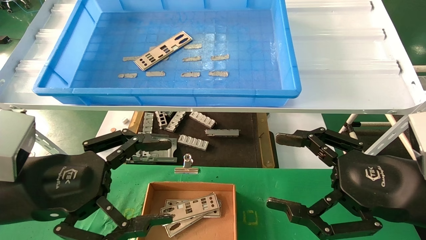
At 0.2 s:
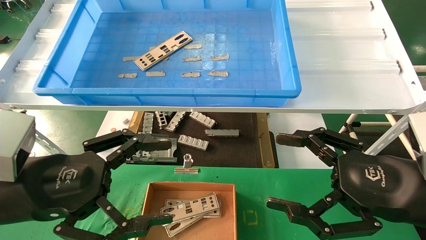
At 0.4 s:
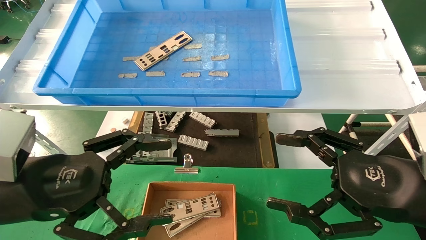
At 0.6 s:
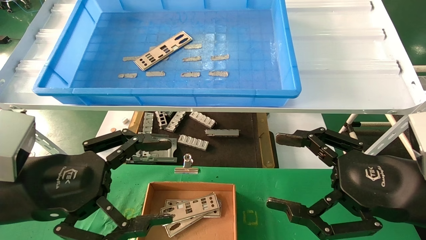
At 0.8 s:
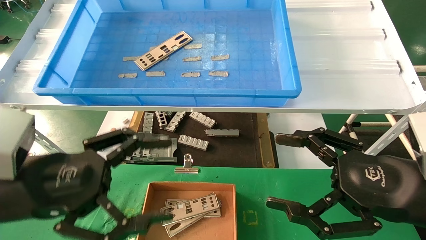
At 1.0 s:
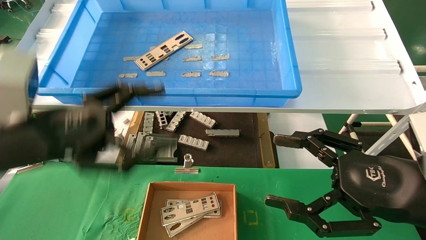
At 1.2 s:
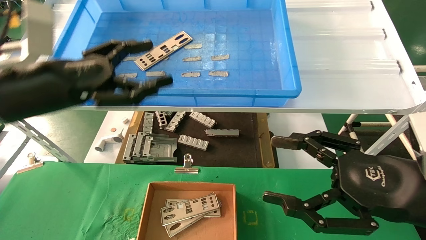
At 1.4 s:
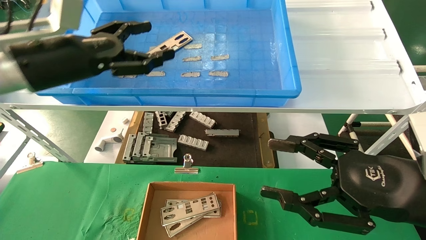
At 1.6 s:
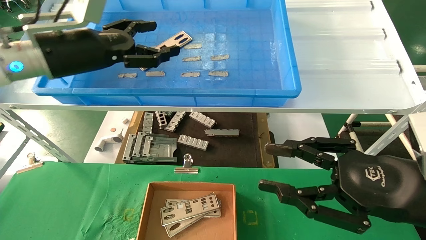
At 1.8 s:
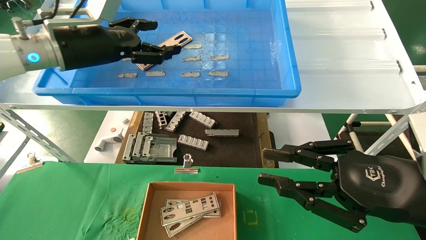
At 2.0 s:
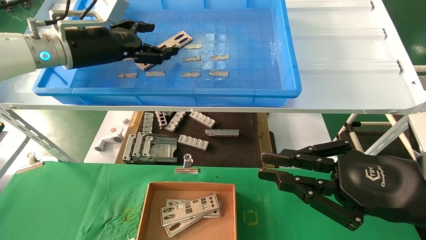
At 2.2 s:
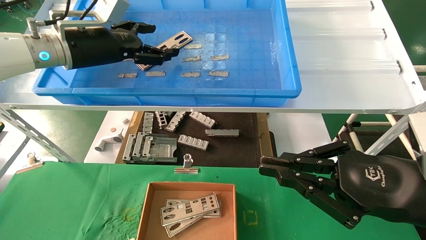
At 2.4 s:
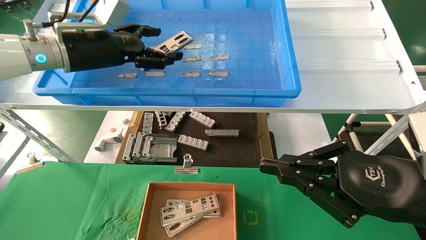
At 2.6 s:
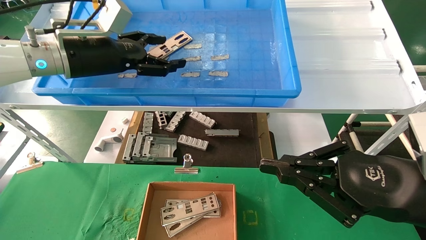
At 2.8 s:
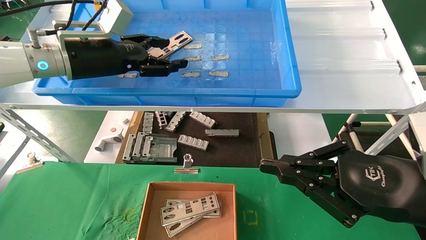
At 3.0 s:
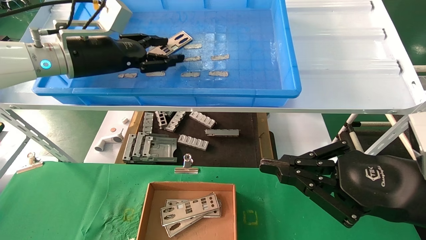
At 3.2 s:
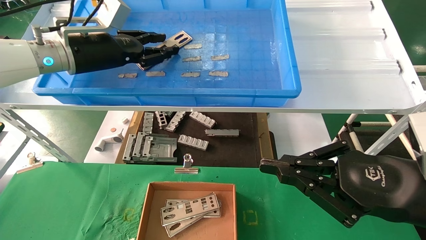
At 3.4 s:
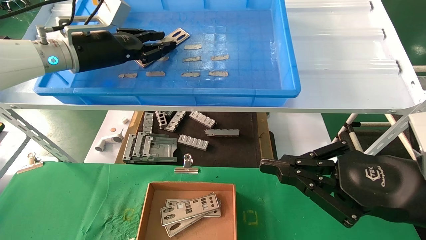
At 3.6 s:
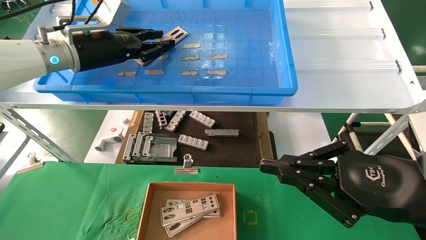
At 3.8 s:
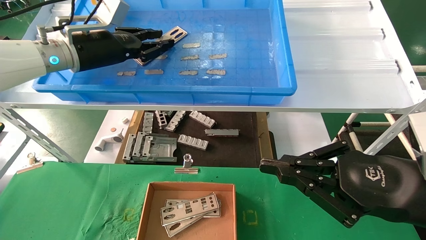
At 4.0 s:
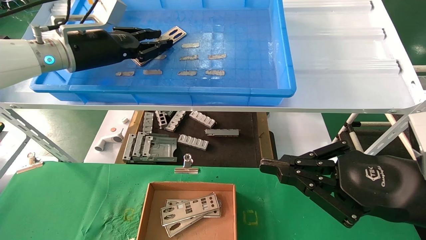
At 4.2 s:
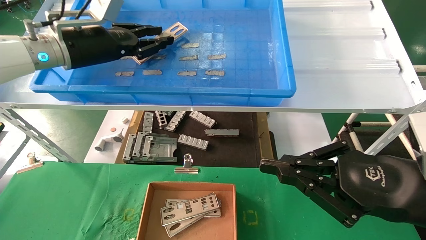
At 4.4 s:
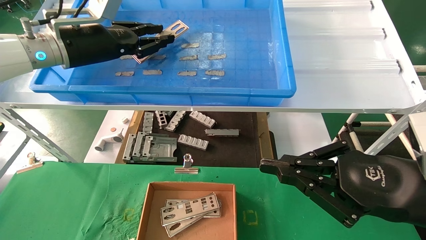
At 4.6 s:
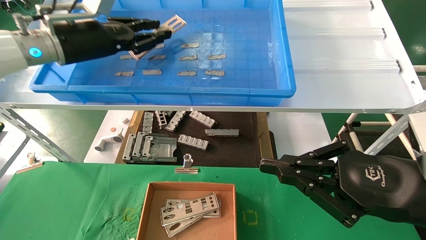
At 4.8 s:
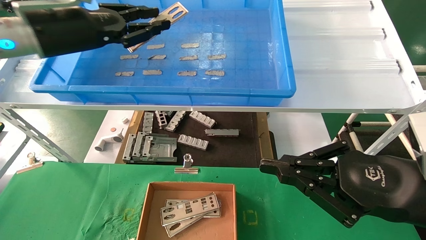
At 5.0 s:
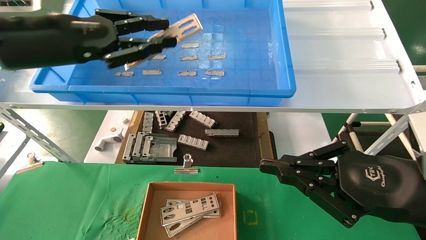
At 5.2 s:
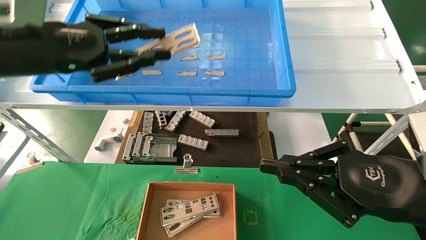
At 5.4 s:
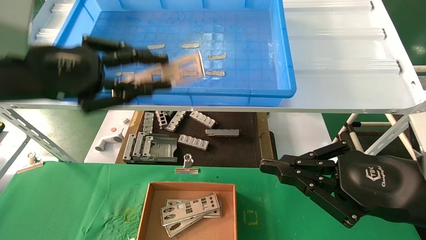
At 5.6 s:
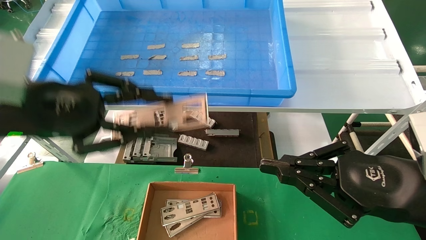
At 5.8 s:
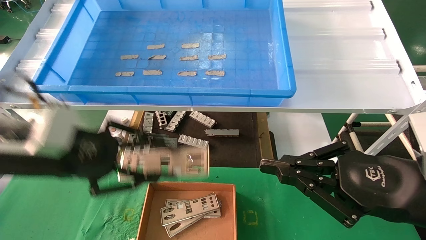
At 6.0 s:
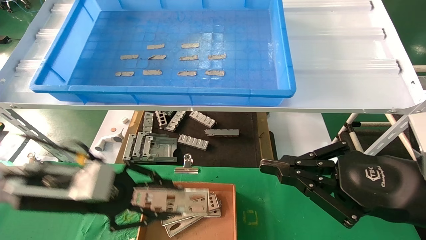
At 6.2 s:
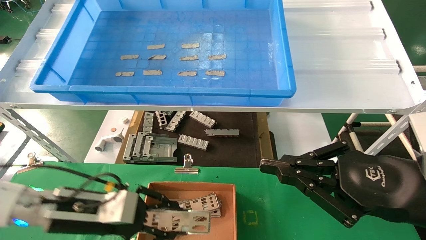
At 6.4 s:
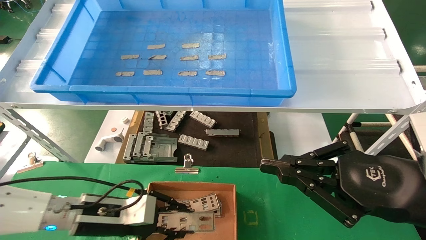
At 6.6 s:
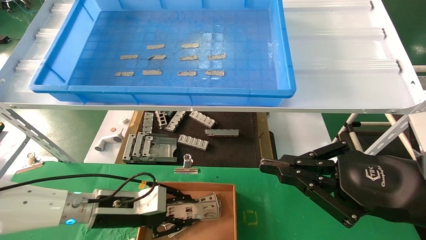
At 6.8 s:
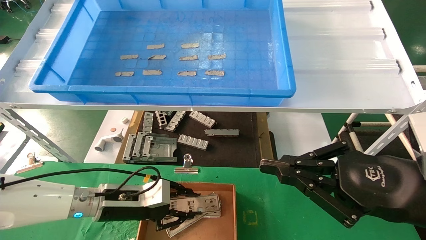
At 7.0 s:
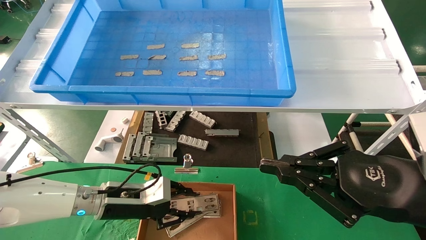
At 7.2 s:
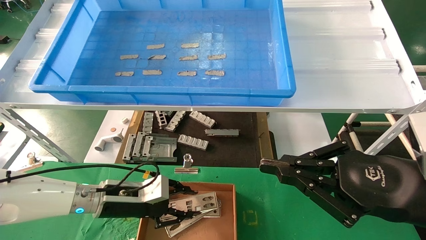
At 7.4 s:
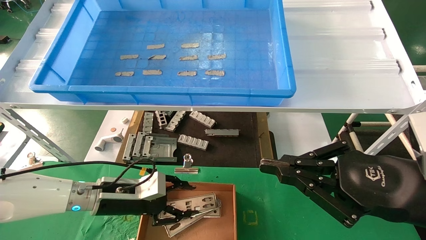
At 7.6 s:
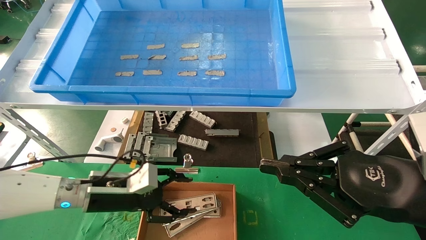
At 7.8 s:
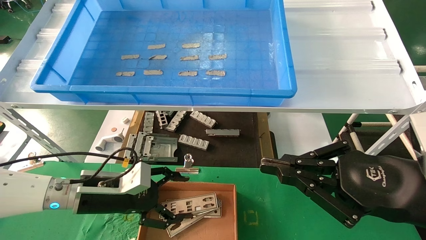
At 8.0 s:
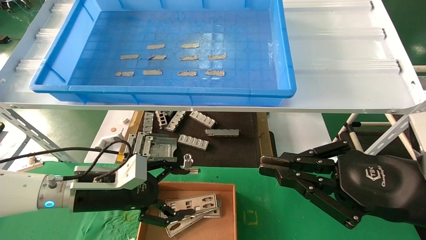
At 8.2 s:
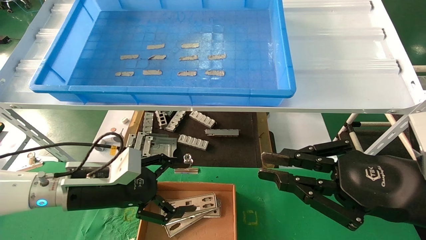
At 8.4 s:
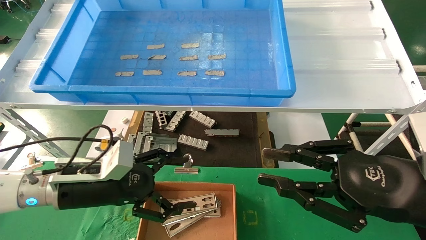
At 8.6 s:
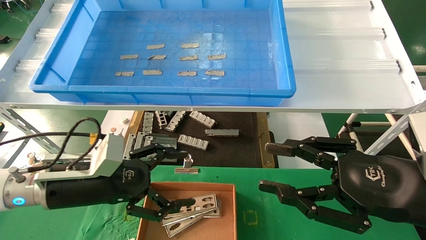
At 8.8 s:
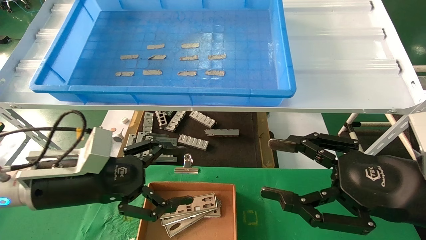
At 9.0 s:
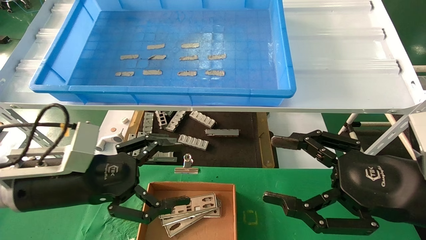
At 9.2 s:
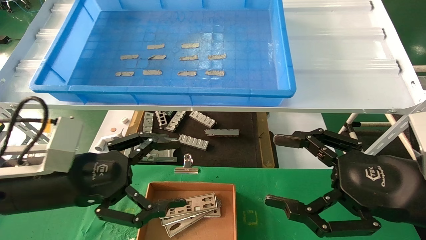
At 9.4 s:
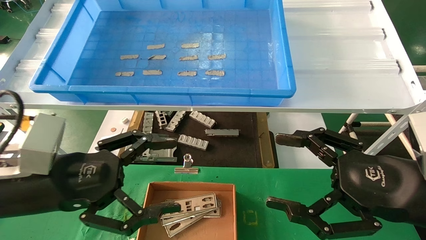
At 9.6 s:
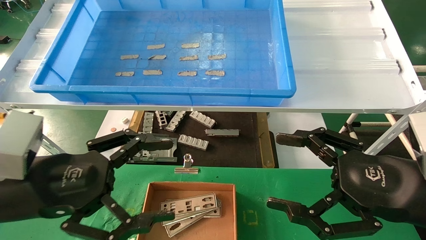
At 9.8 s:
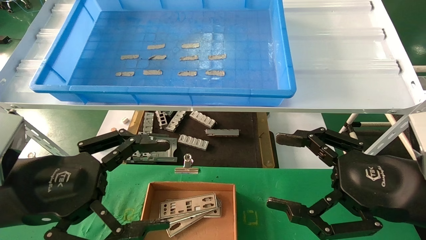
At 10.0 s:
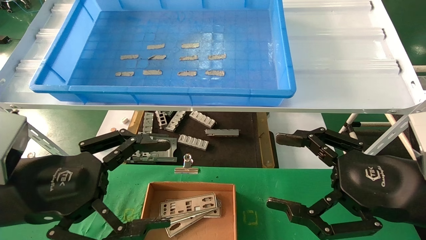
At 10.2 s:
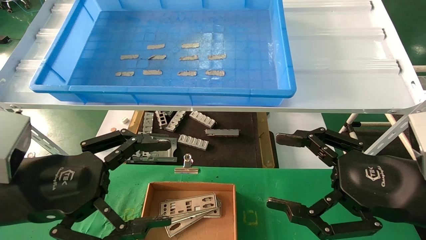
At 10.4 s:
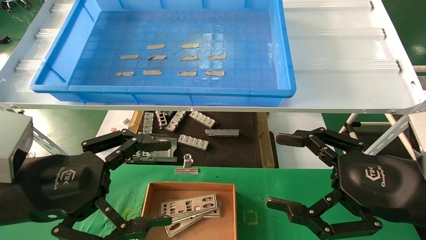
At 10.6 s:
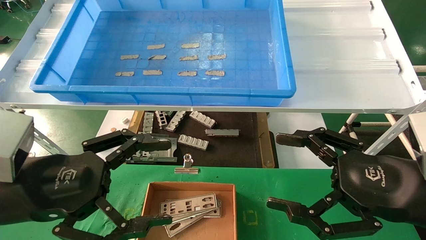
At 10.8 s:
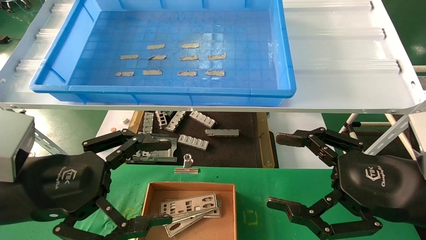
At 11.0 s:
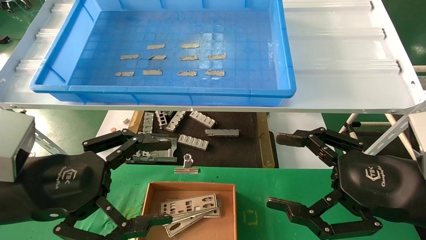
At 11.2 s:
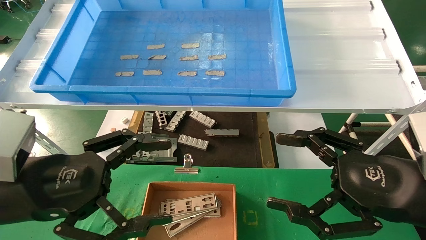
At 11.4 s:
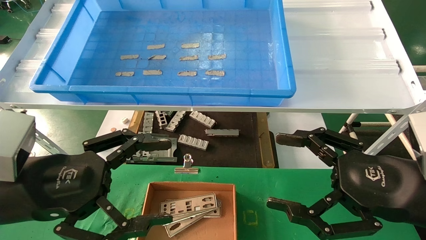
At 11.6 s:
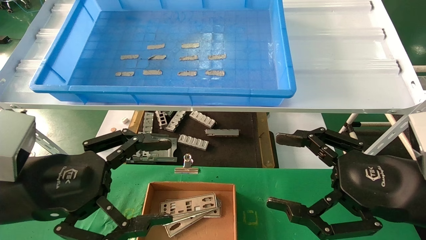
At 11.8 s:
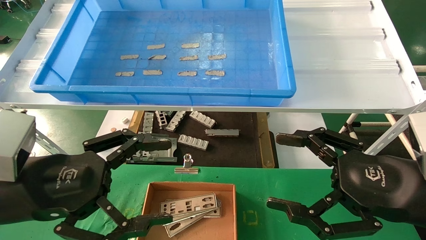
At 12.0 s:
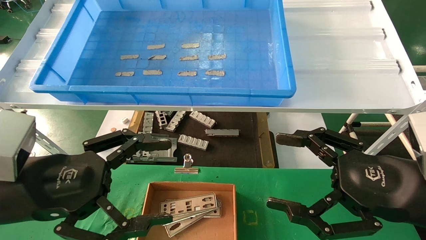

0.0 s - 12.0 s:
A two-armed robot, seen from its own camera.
Task of the whole recording: pick up the parts on the tray and put them in the cardboard box.
Step, 1.2 s - 4.0 s: Pick up the IO bracket from the container box.
Step, 4.2 s - 7.4 s: Place the IO bracket into the ingredient slot.
0.0 s - 1.6 s: The left gripper travels forward and upward by roughly 20 cm. Meanwhile the right gripper closes.
1.6 s - 3.0 s: The right gripper closes, while the left gripper closes.
3.0 s - 4.4 s: The left gripper closes its fingers.
4.4 s - 6.0 s: The left gripper is displaced downward and backward by about 25 cm.
6.0 s - 7.6 s: The left gripper goes approximately 10 cm downward and forward, and opens.
7.6 s - 9.0 s: The right gripper opens its fingers. Meanwhile the left gripper is displaced backward and upward by approximately 15 cm, and opens.
9.0 s - 10.4 s: The left gripper shifts some 5 cm backward.
10.4 s - 12.0 s: The two grippers keep their place.

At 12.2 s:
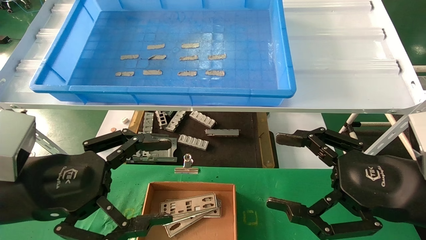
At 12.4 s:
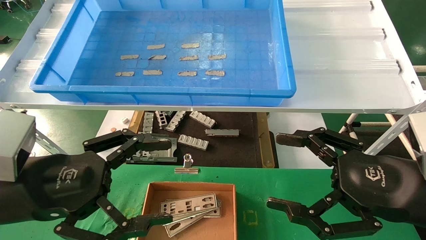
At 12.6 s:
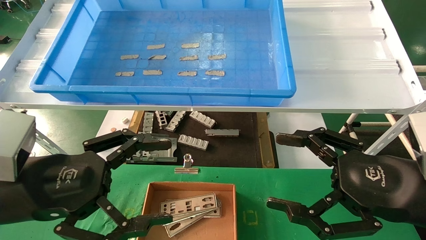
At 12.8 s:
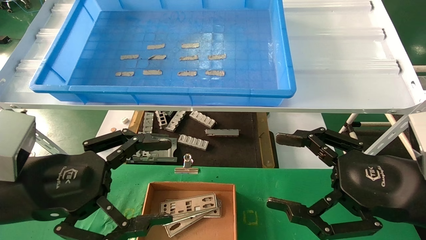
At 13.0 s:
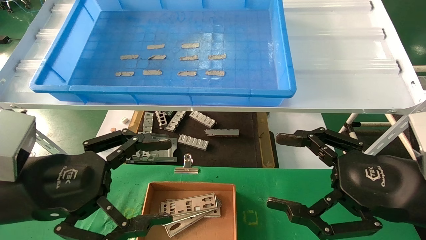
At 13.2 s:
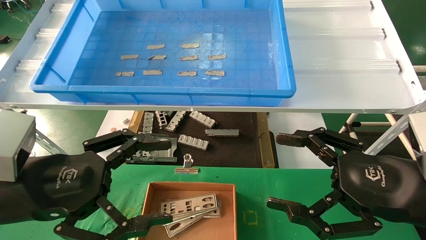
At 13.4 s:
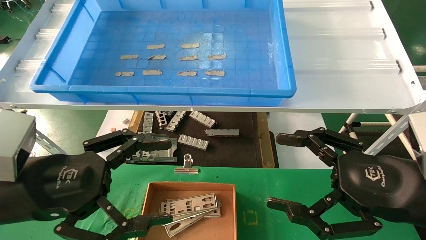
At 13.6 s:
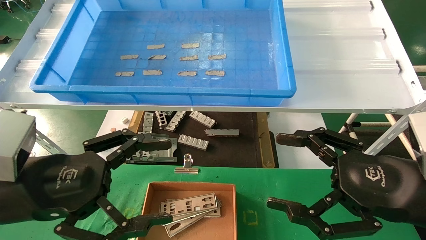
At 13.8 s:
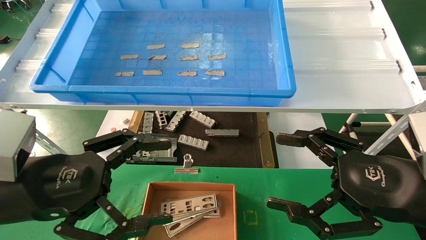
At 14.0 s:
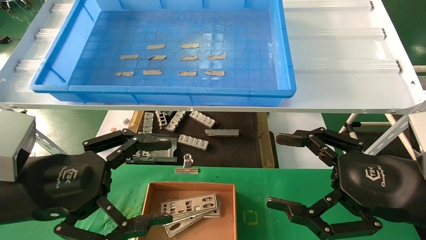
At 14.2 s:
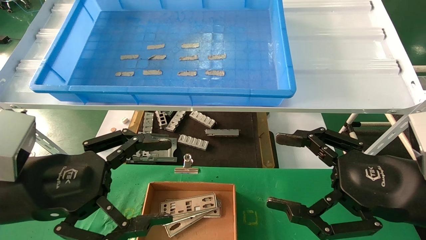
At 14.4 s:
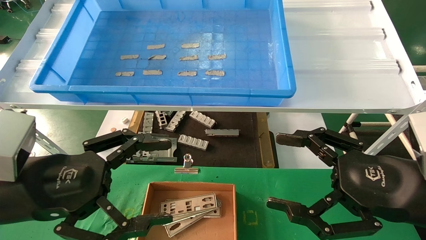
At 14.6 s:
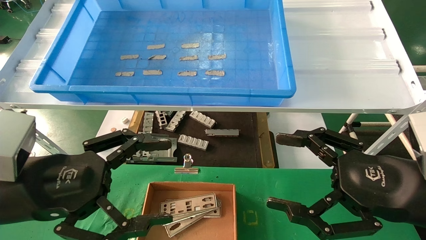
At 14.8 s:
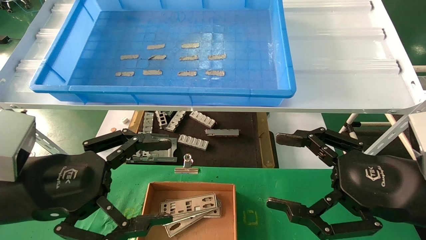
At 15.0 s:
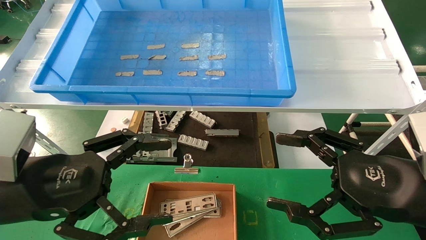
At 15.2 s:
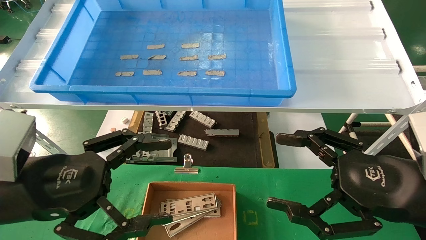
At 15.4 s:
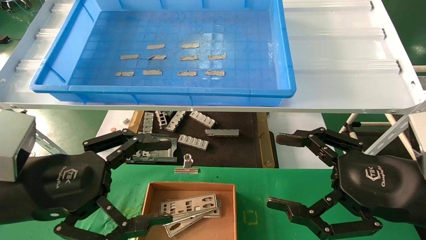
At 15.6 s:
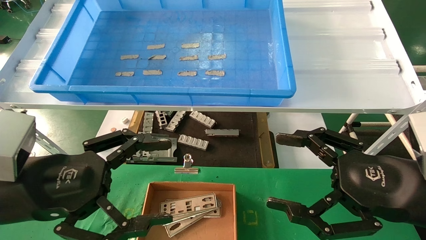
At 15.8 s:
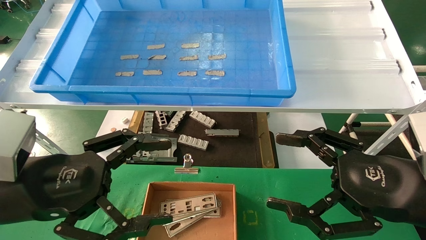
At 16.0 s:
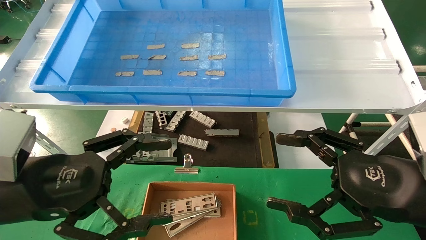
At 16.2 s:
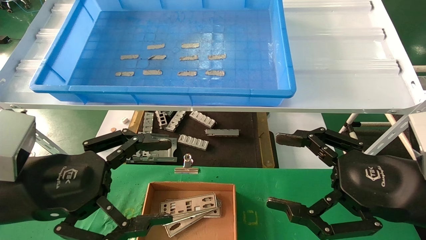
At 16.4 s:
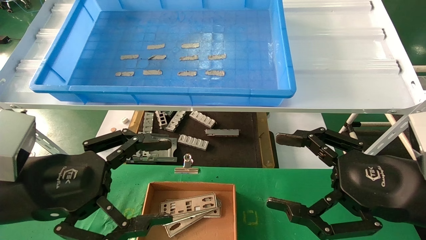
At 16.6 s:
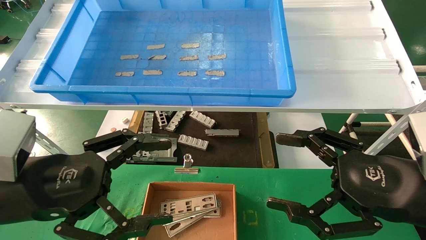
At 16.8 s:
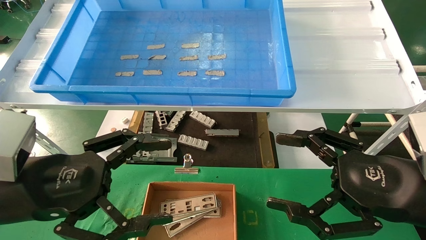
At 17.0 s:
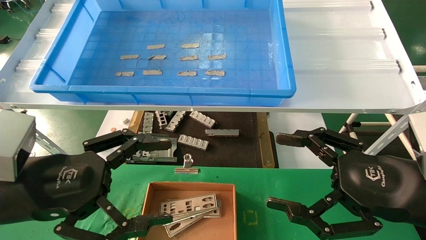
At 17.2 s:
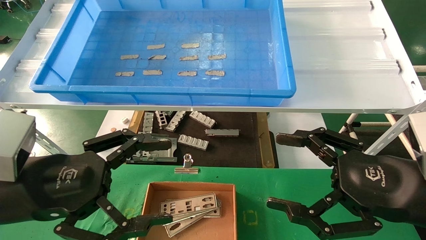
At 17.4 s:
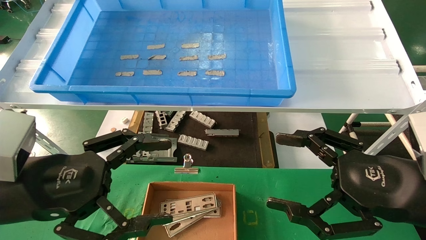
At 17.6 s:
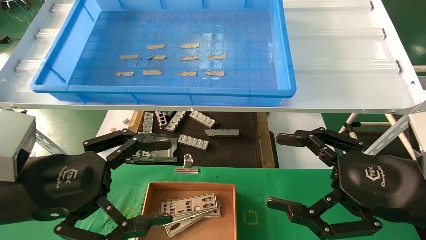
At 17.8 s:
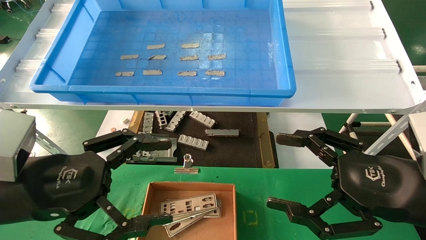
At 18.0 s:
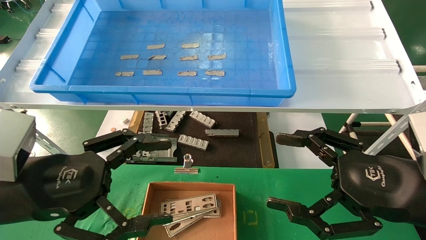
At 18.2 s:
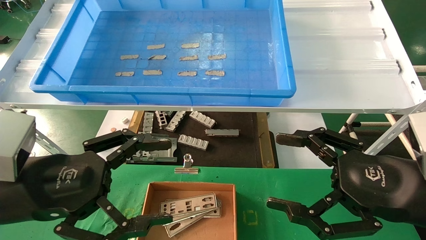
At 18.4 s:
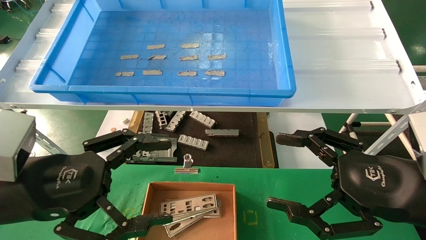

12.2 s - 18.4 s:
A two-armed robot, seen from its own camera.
Task of the whole recording: pick up the parts on the tray and put them in the cardboard box.
12.2 s - 18.4 s: The two grippers keep their place.
